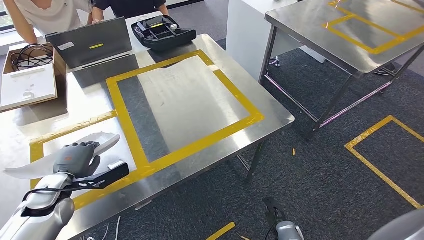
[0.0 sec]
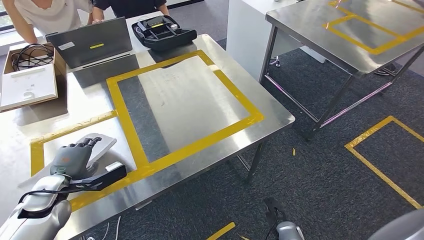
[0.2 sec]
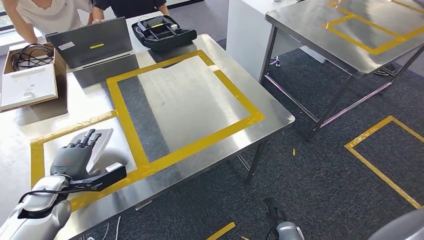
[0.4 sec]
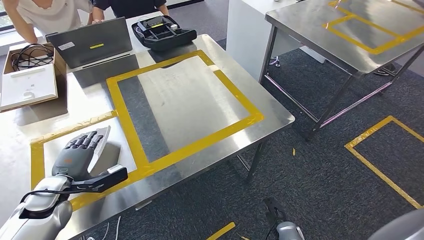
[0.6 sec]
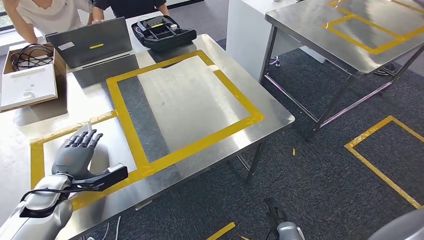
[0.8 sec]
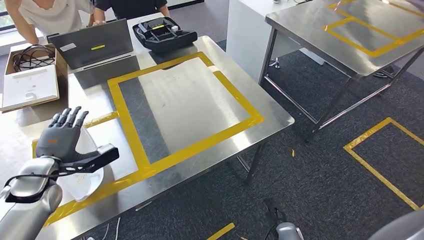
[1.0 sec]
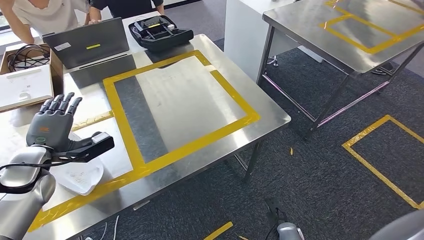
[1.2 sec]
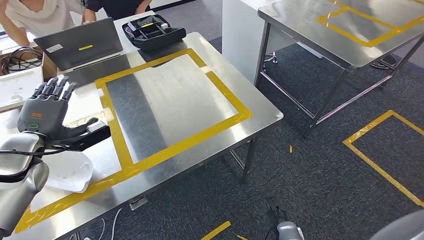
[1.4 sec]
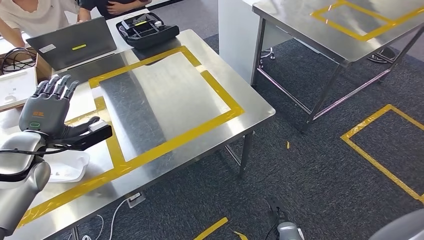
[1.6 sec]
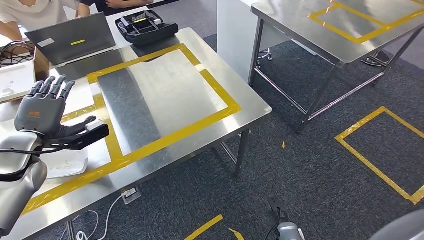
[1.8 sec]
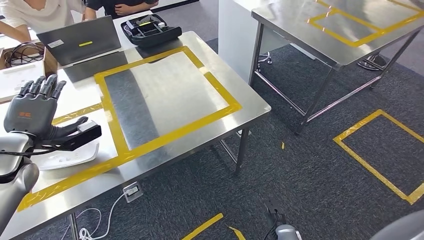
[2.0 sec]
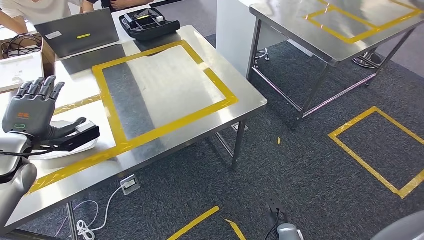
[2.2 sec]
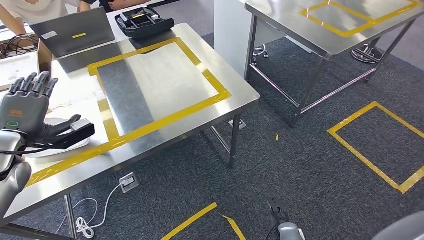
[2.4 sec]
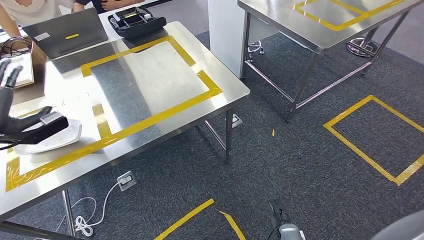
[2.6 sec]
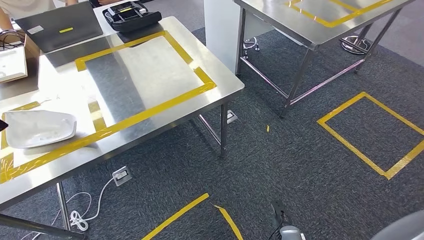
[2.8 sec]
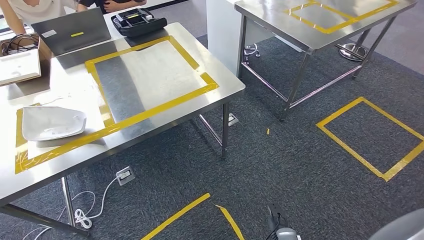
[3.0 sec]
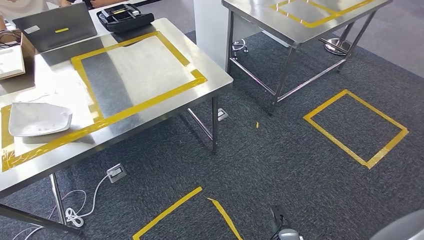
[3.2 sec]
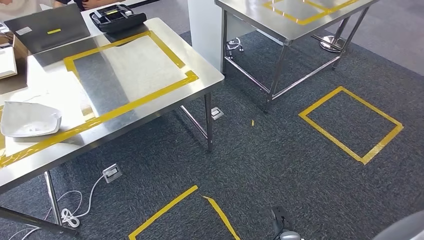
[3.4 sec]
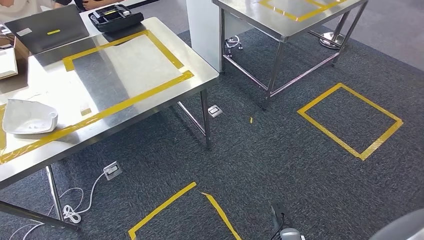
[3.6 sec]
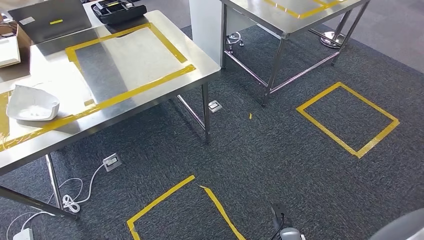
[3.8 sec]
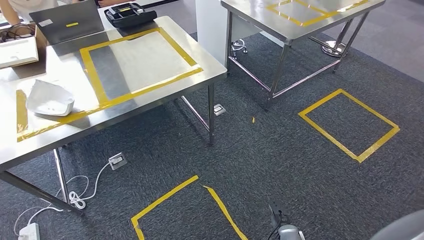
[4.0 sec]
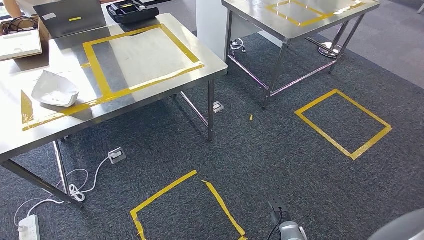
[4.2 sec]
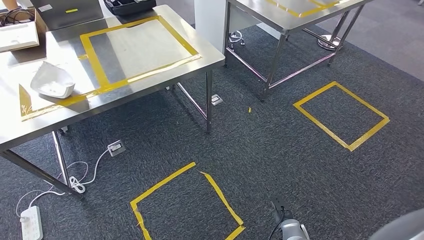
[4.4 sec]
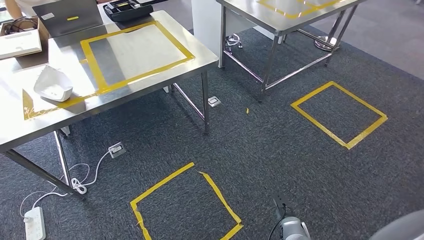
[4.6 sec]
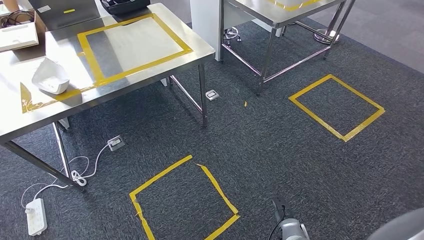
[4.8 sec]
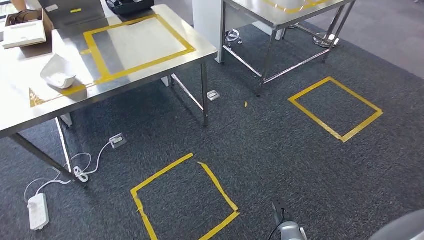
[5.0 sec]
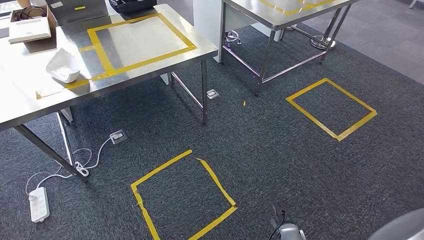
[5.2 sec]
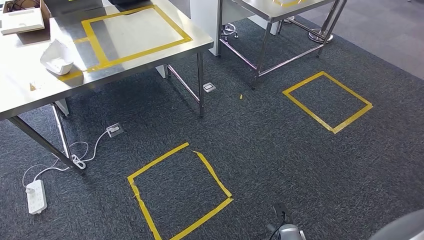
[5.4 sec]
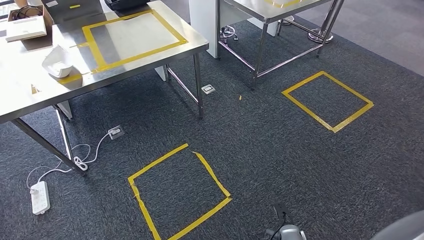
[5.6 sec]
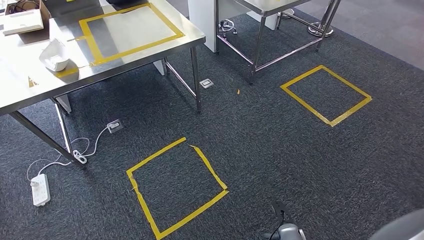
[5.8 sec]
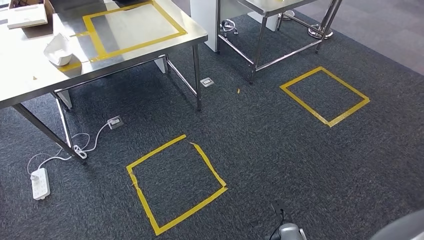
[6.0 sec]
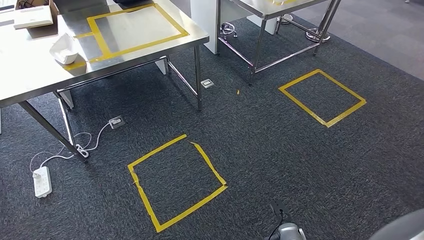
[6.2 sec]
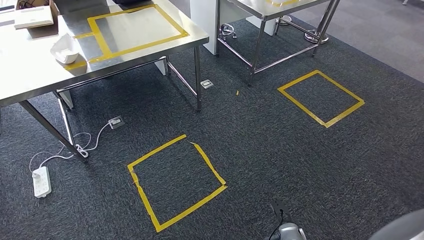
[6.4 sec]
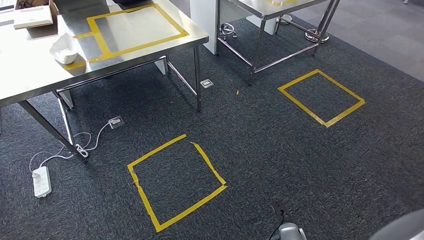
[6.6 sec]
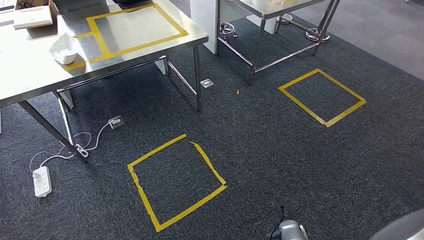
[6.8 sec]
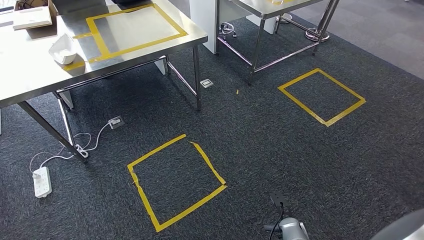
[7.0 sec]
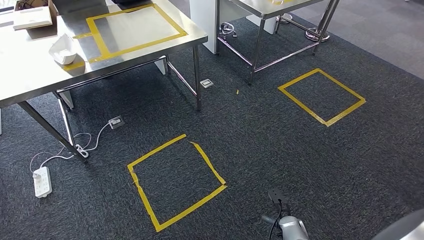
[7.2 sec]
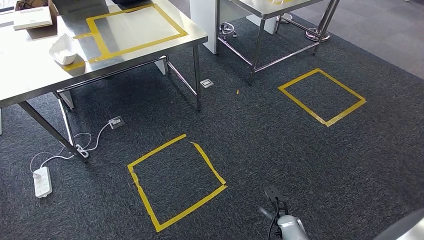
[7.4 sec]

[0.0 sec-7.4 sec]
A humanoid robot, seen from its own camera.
Step, 1.6 sec to 7.4 sec: Return to the initial position at the workbench.
6.0 sec to 7.4 sec: There are only small adjustments of the hands.
